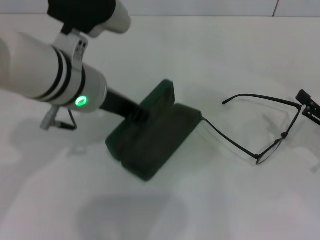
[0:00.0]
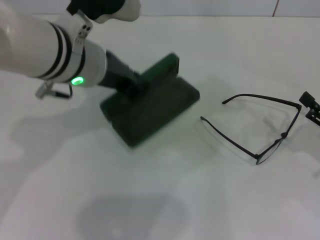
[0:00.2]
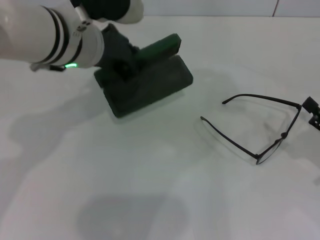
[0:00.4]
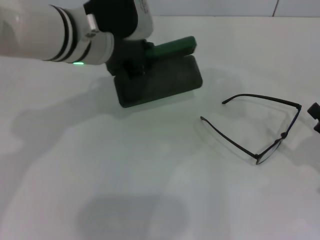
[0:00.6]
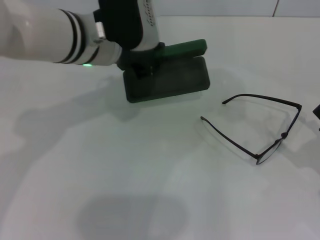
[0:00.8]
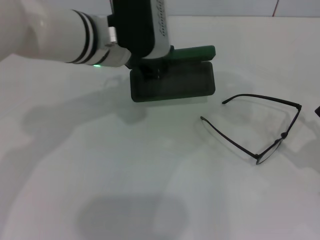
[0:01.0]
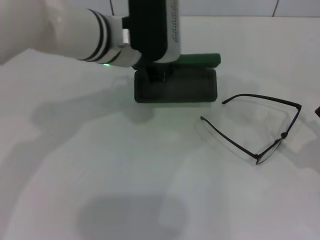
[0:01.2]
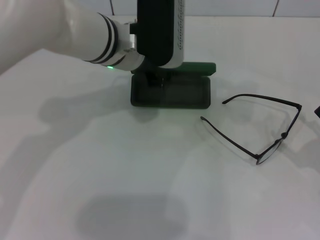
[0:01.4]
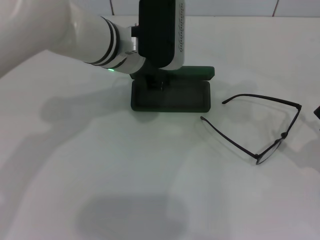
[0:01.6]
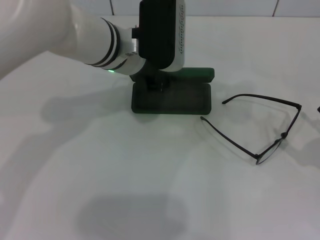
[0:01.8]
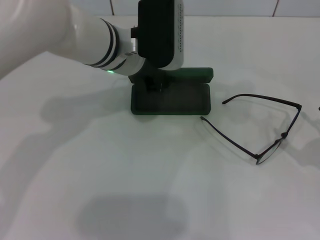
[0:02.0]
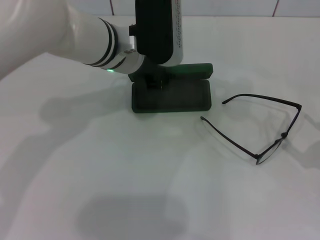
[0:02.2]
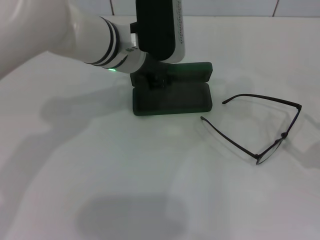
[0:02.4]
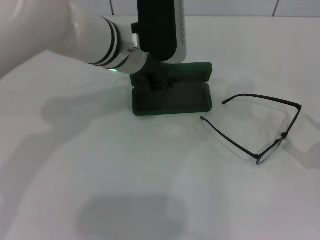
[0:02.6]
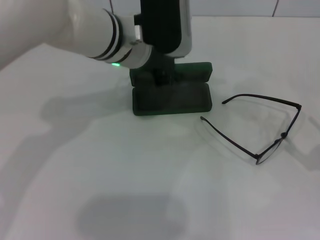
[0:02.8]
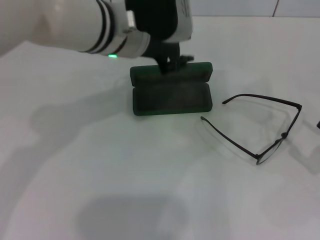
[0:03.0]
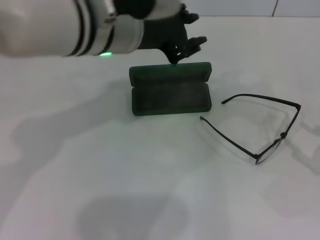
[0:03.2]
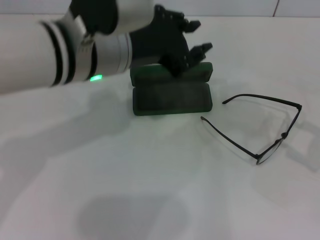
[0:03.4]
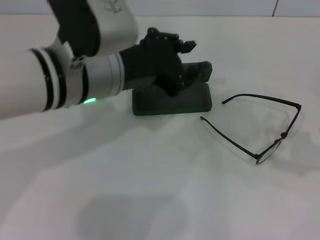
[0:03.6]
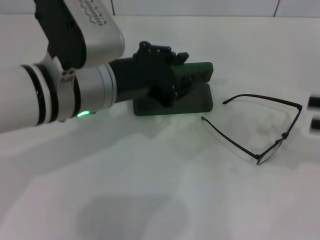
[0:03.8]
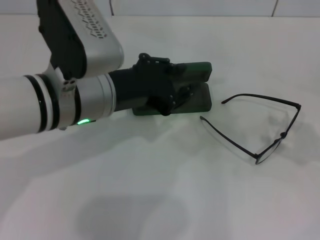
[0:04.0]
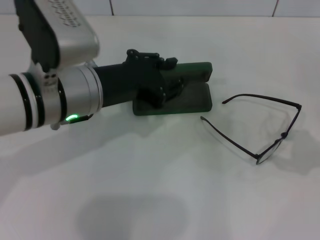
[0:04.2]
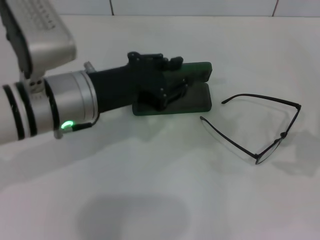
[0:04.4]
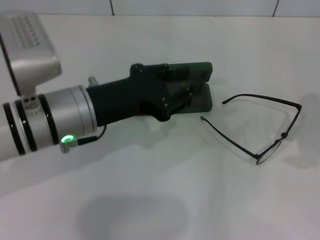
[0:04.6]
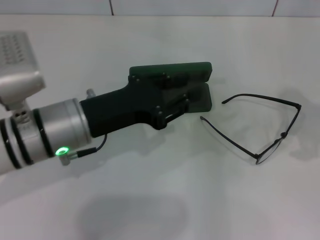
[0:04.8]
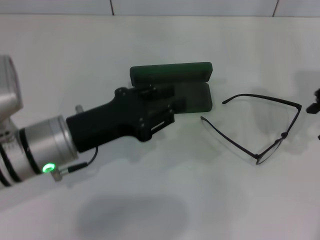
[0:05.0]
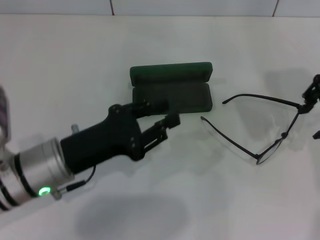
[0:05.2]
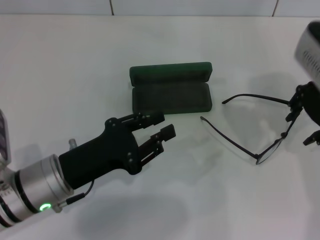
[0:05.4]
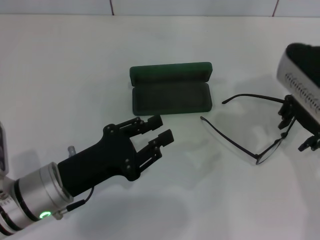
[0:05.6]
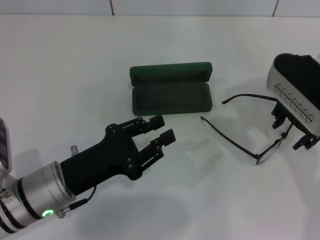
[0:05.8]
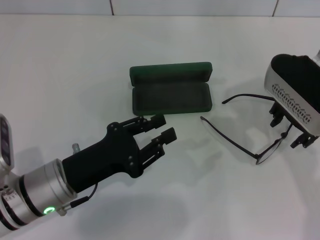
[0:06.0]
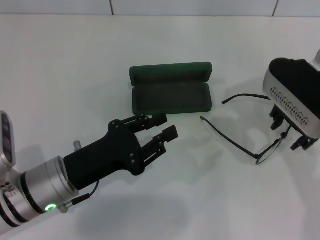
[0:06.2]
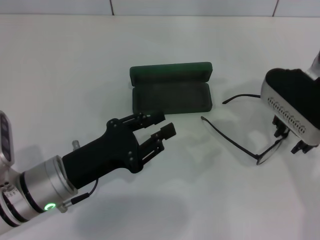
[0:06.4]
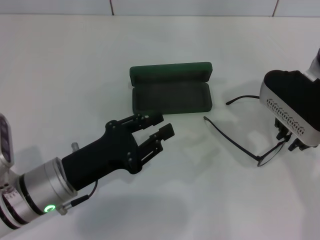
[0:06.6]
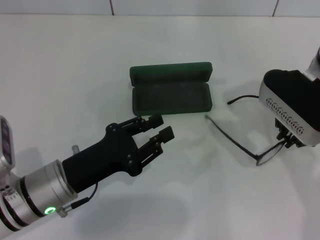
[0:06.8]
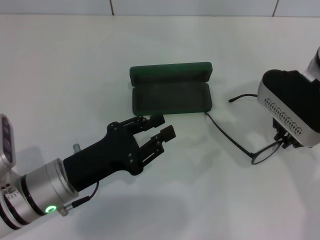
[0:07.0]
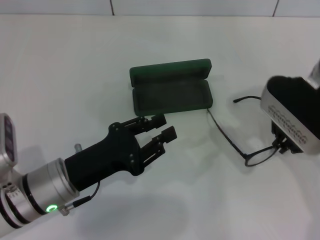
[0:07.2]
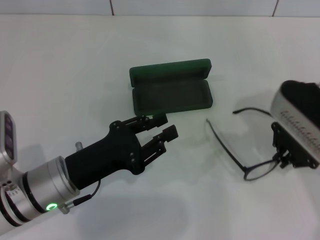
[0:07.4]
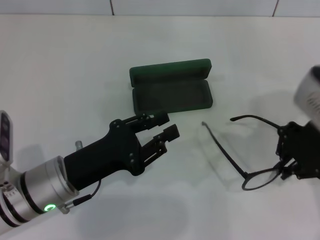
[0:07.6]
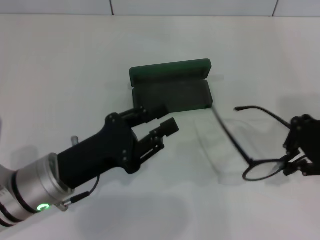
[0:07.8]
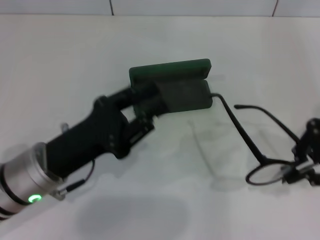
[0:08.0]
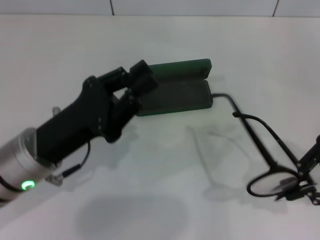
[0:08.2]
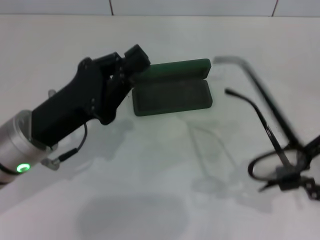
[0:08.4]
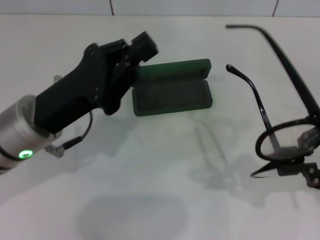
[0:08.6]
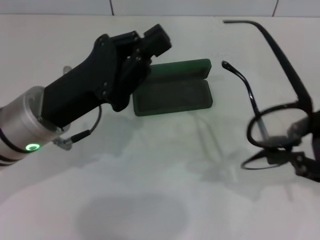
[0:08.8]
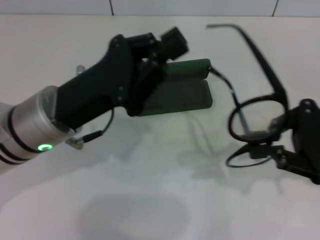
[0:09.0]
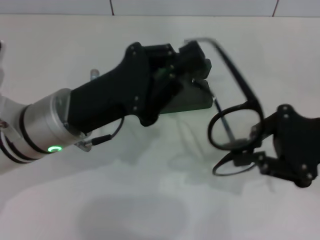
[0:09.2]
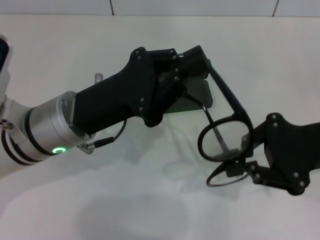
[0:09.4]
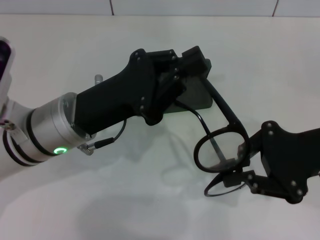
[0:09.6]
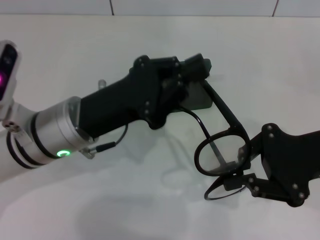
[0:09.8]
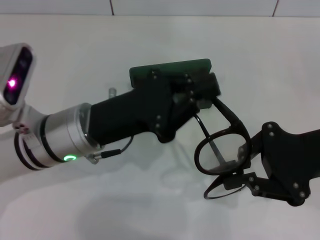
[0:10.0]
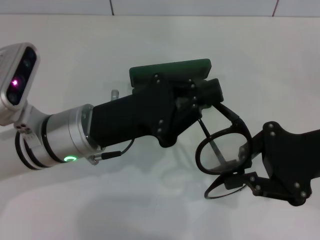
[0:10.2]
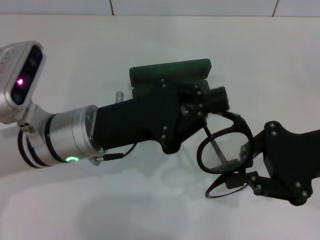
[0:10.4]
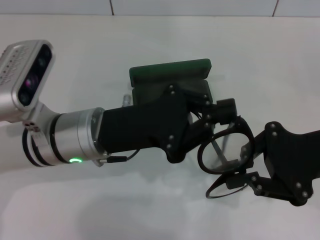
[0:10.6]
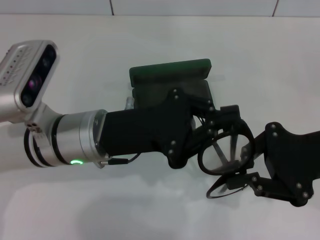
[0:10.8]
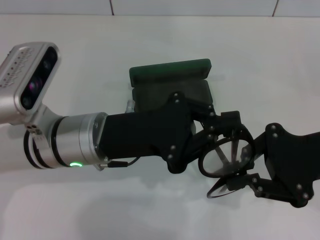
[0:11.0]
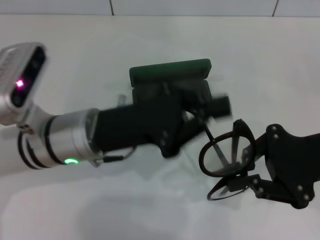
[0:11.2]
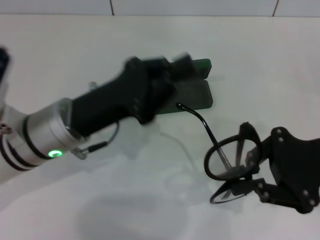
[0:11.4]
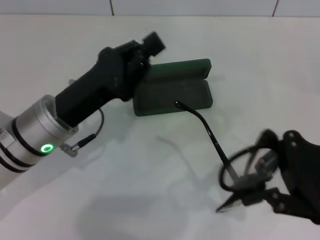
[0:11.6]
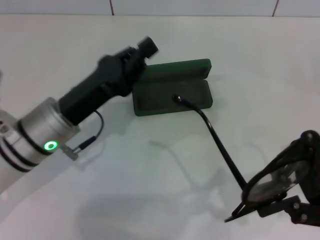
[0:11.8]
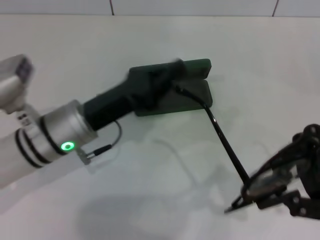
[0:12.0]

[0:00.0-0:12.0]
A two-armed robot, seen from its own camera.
Step, 0:00.0 to 0:02.8: Place the glasses case in the center of the table with your left hand.
Step, 0:03.0 to 0:07.2: Grab the eyeglass frame with your right hand.
0:00.0 to 0:01.6: The left gripper moves forward, roughly 10 cm.
0:01.6 to 0:03.0: The left gripper shifts by roughly 5 cm, and opens its fingers.
0:03.0 to 0:04.4: The left gripper goes approximately 10 cm backward and to the left. Meanwhile the right gripper travels upward and forward by about 15 cm, and closes up.
0:04.4 to 0:06.0: The right gripper travels to the left by roughly 20 cm. The left gripper is displaced downward and backward by approximately 15 cm.
0:06.0 to 0:07.6: The right gripper shifts by about 5 cm, and closes up.
0:07.6 to 0:09.0: The right gripper is displaced to the right by some 10 cm, while the left gripper shifts approximately 10 cm upward, and closes up.

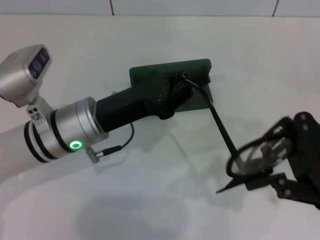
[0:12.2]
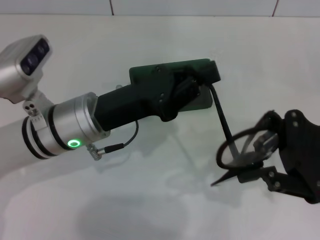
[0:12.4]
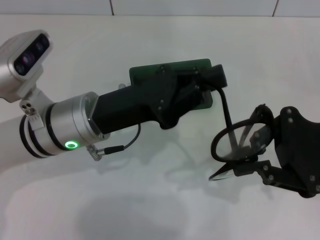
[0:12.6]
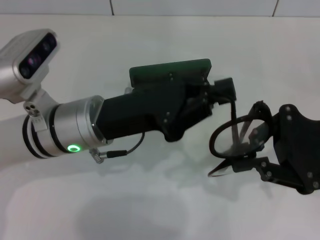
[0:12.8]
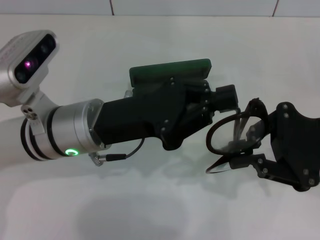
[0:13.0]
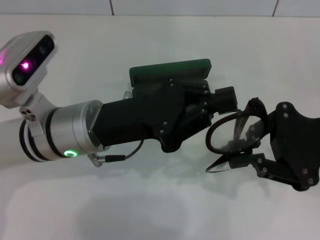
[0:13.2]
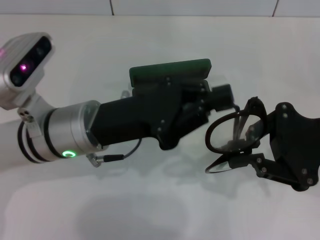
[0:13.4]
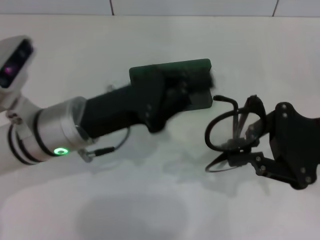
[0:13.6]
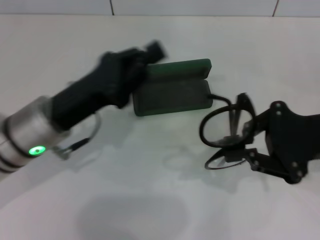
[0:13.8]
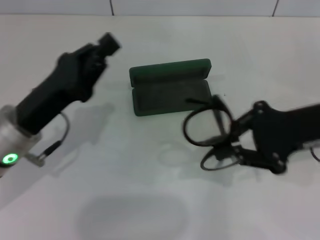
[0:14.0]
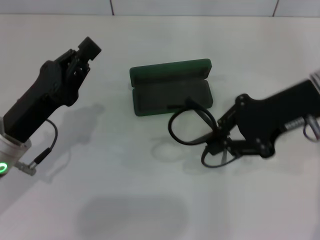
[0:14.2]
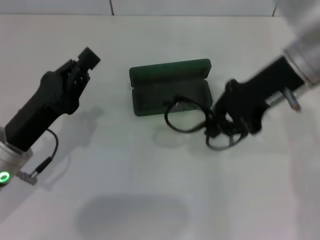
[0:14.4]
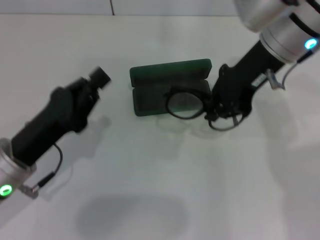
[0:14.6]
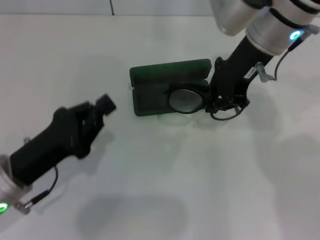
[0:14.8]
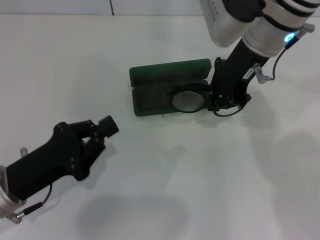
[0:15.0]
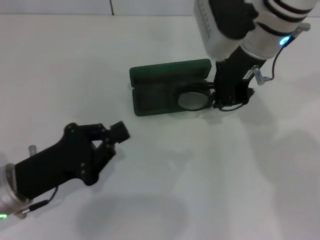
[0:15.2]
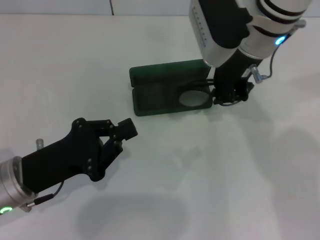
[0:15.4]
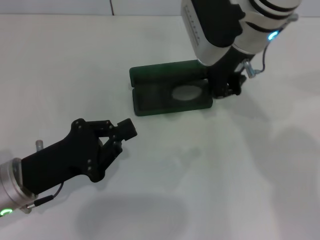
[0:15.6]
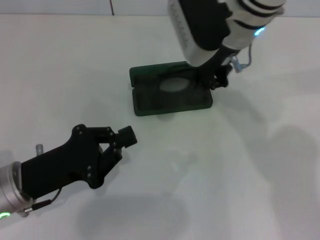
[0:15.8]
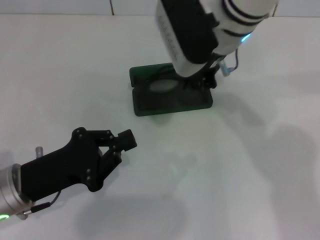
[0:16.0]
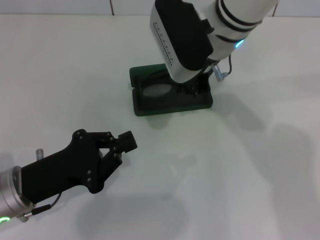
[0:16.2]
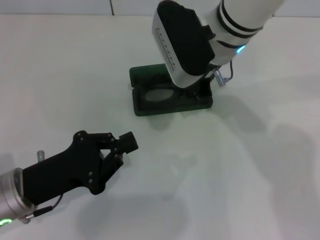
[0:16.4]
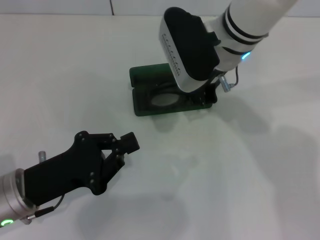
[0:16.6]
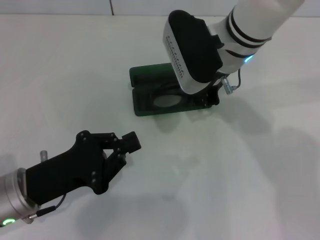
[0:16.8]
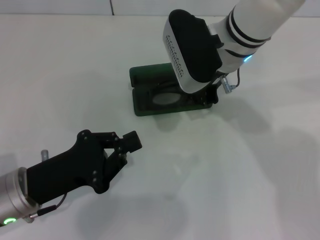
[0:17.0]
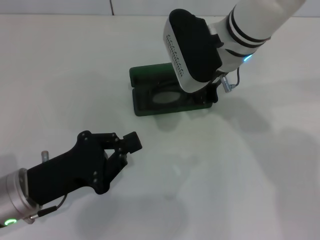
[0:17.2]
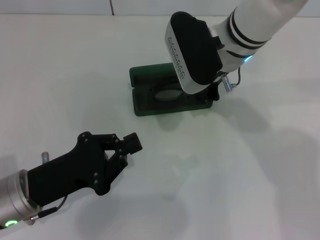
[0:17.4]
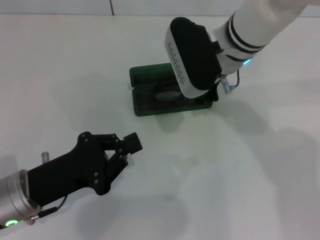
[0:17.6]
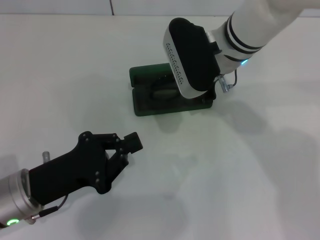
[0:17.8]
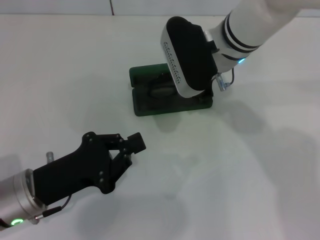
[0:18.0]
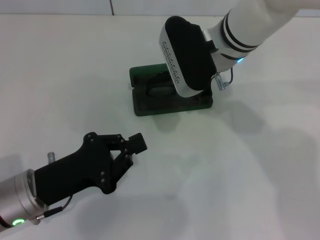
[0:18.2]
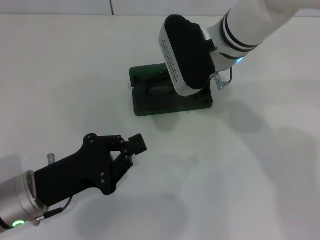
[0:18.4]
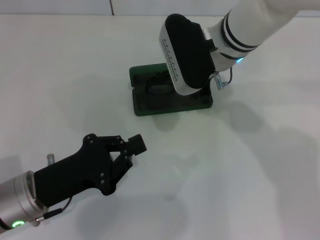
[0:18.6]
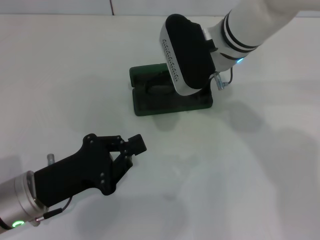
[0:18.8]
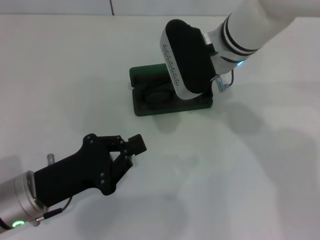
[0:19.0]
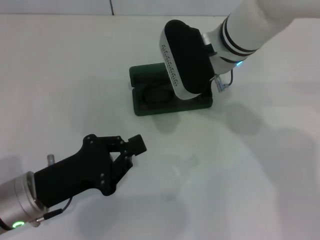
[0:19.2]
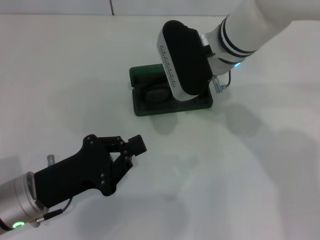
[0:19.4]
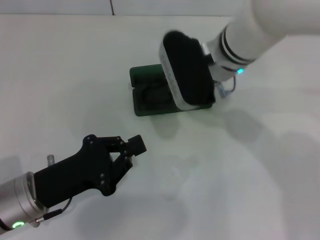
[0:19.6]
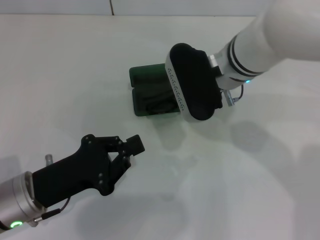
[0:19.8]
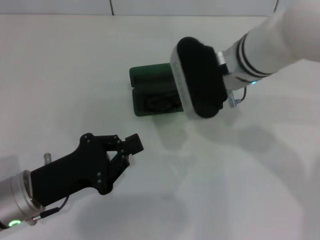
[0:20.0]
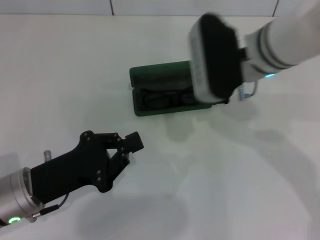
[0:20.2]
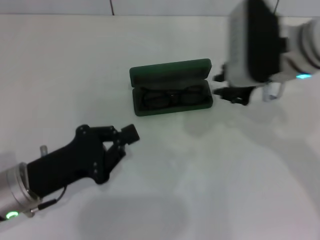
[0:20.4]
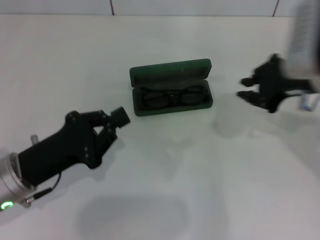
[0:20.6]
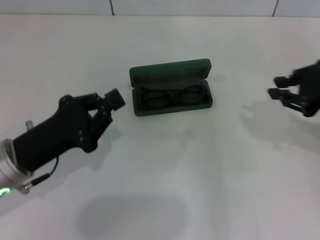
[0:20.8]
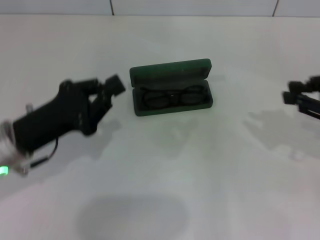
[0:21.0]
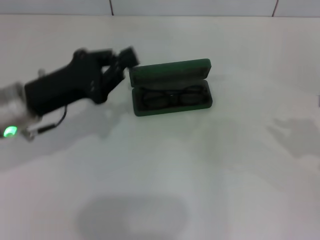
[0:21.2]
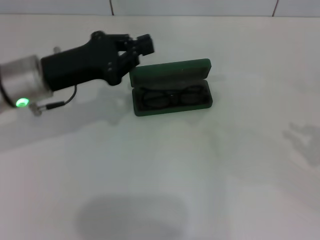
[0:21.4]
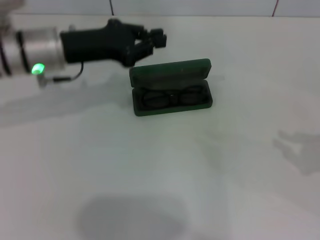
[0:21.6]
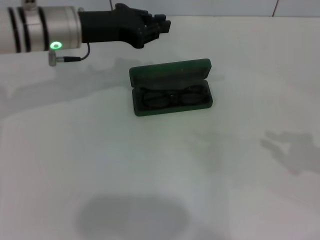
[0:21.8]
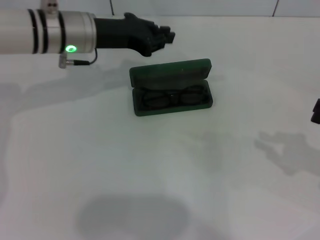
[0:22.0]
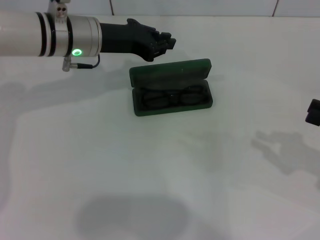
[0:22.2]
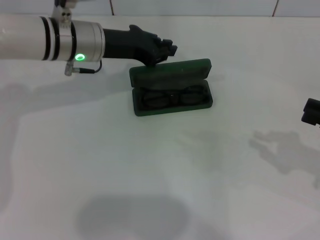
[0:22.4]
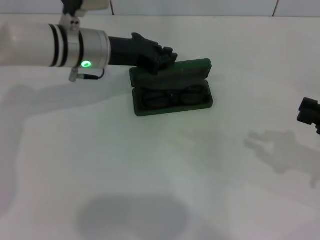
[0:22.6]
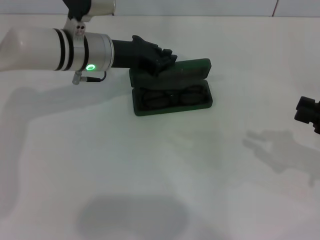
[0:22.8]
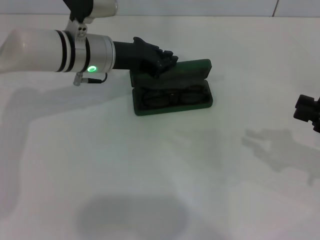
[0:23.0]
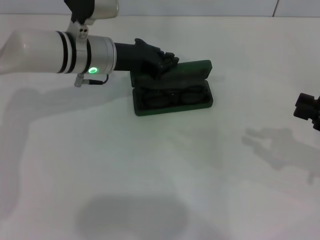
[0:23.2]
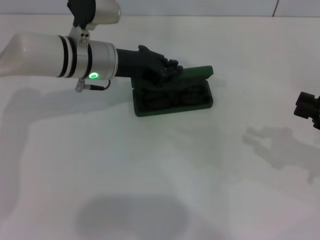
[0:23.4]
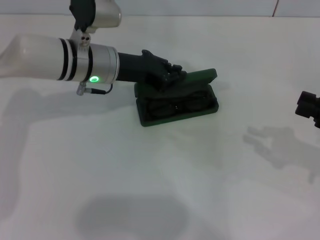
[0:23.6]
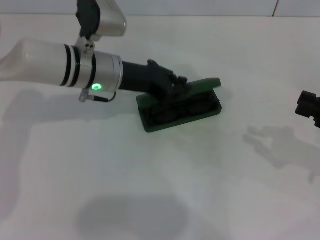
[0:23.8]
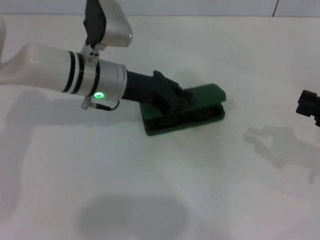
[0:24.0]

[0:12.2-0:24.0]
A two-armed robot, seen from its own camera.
Step, 0:13.4 to 0:20.0: Put the glasses into the case with your right hand.
0:12.2 to 0:13.6: The grippers stay close to where they were, moving slightly.
0:13.6 to 0:15.2: The right gripper is displaced to the left and forward by about 20 cm. The left gripper moves to the left, backward and downward, about 15 cm.
0:15.2 to 0:16.6: The right gripper ends up some 5 cm from where it was.
0:16.6 to 0:19.6: The grippers move only a little.
0:19.6 to 0:21.0: The right gripper shifts about 30 cm to the right and backward, while the left gripper moves some 5 cm.
0:21.0 to 0:22.6: The right gripper shifts some 5 cm downward. Meanwhile the left gripper shifts roughly 20 cm forward and to the right.
0:22.6 to 0:24.0: The grippers stay close to where they were, moving slightly.
